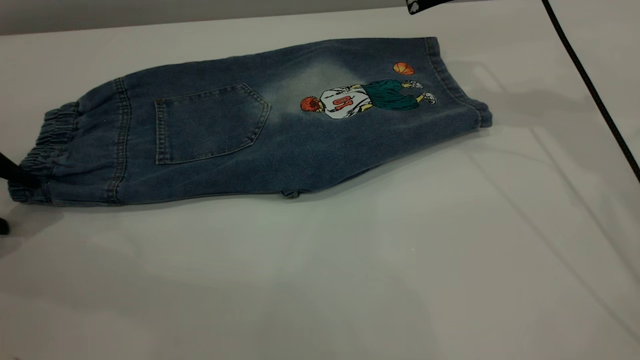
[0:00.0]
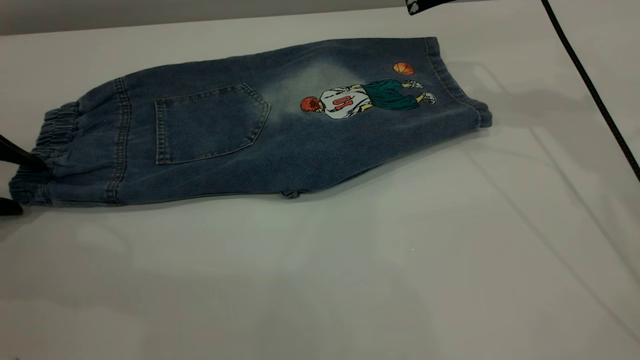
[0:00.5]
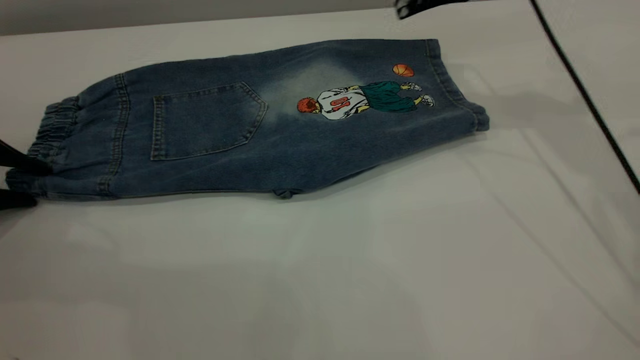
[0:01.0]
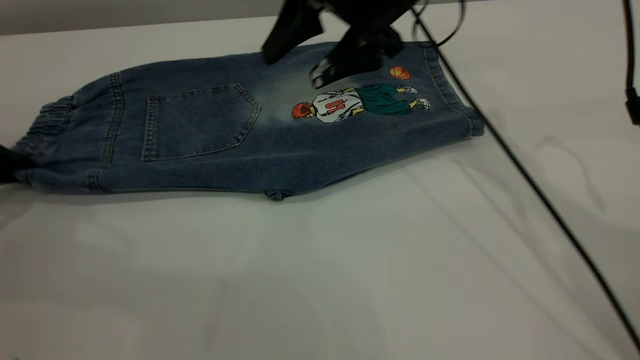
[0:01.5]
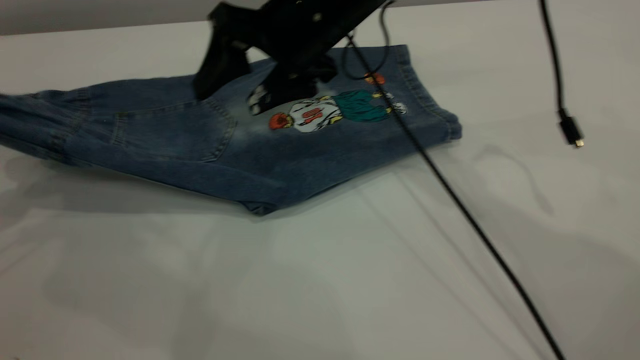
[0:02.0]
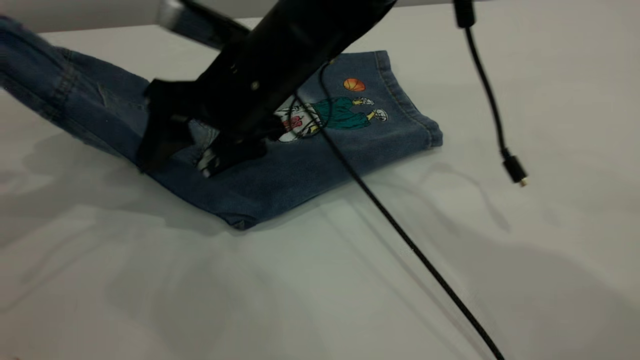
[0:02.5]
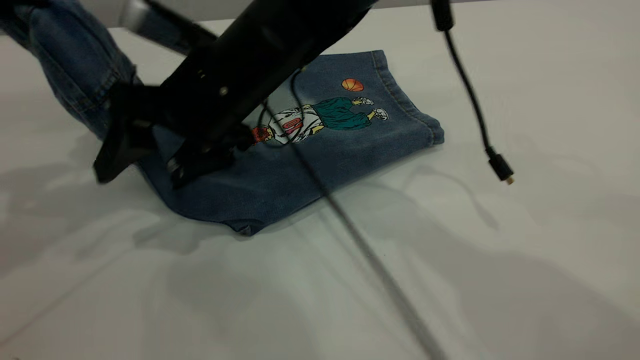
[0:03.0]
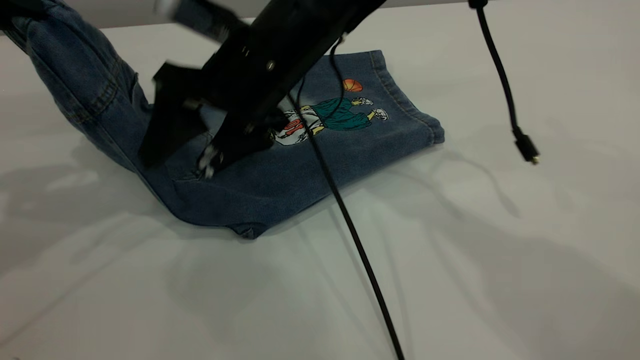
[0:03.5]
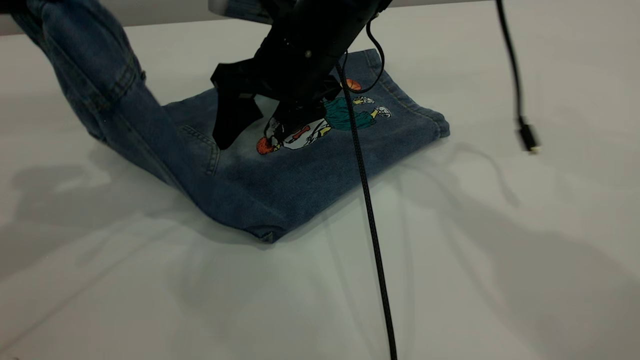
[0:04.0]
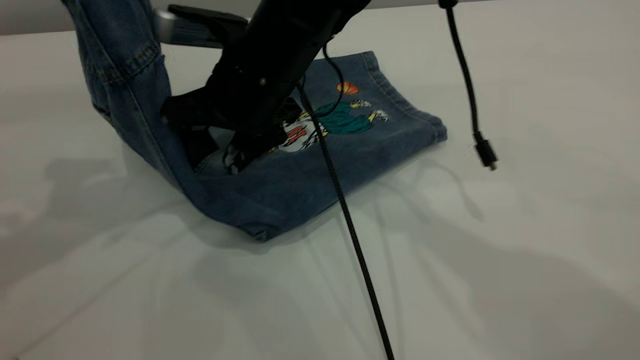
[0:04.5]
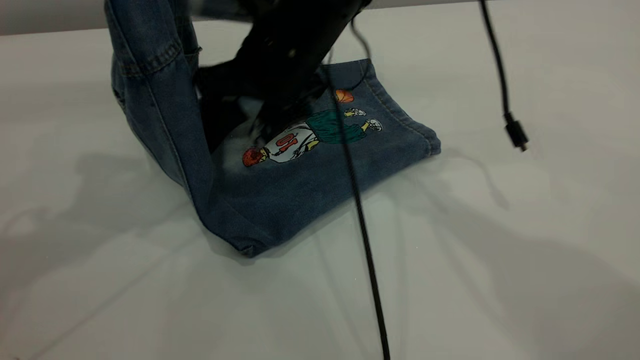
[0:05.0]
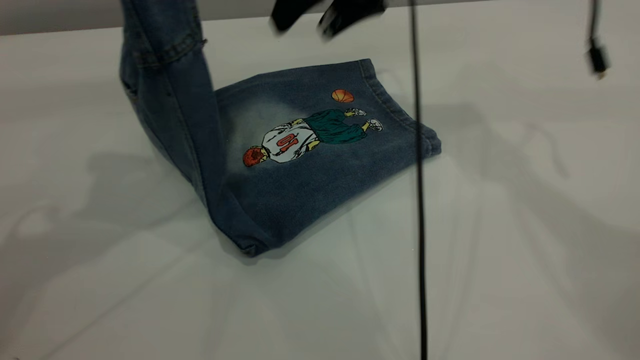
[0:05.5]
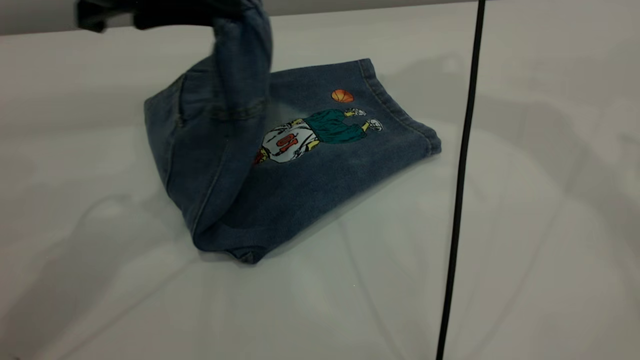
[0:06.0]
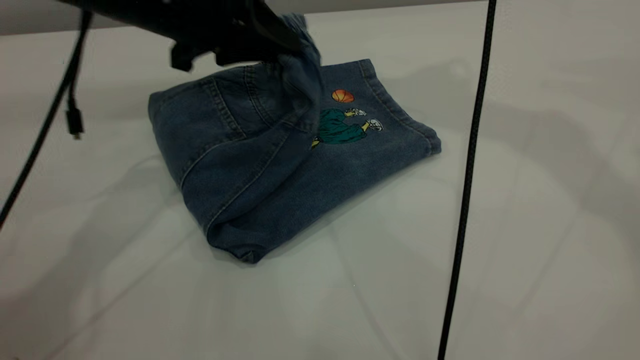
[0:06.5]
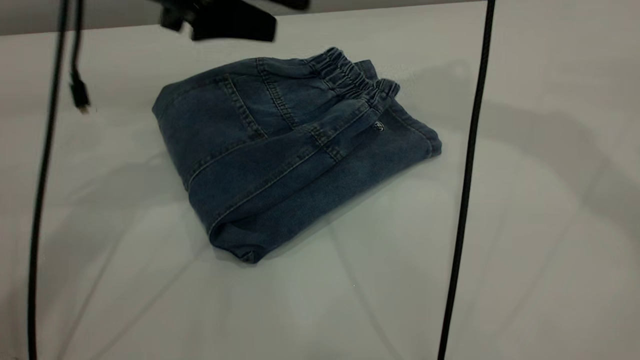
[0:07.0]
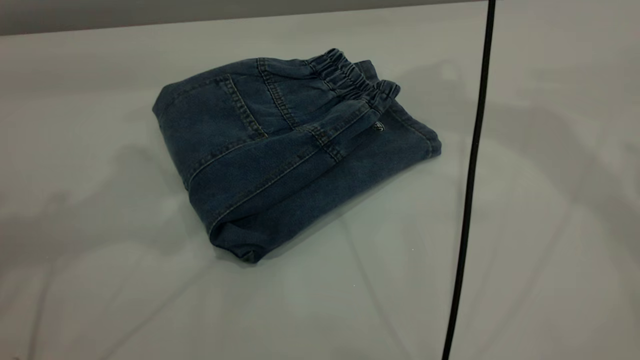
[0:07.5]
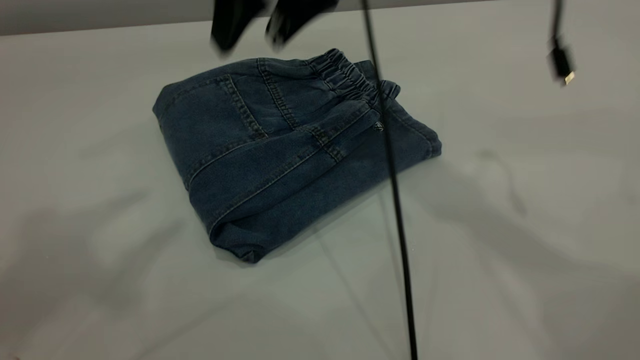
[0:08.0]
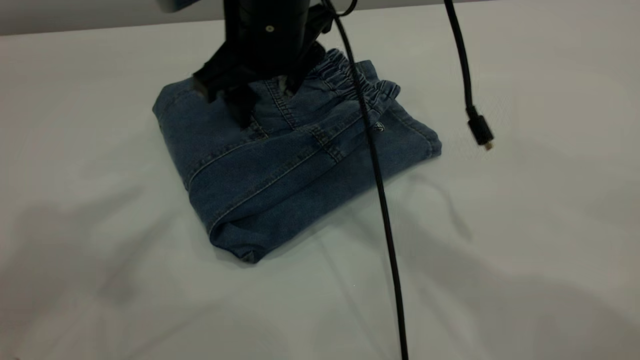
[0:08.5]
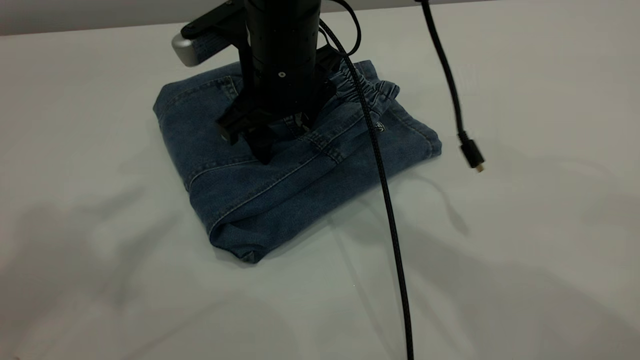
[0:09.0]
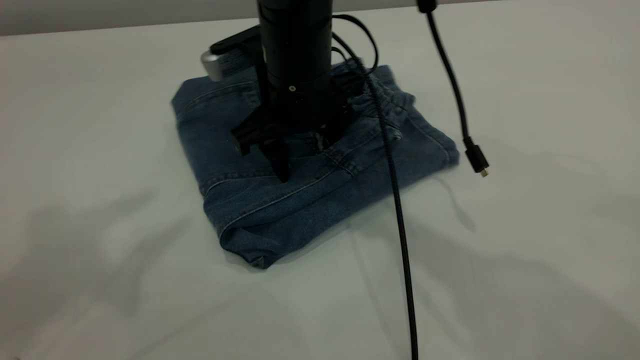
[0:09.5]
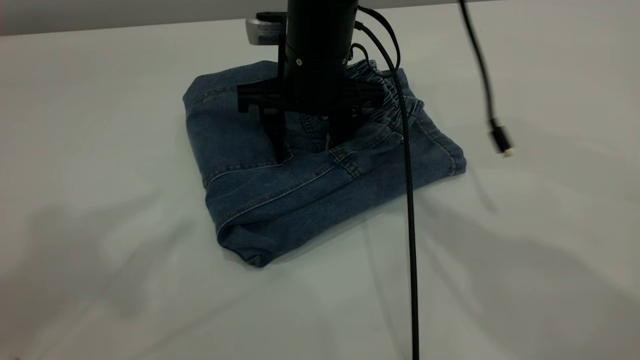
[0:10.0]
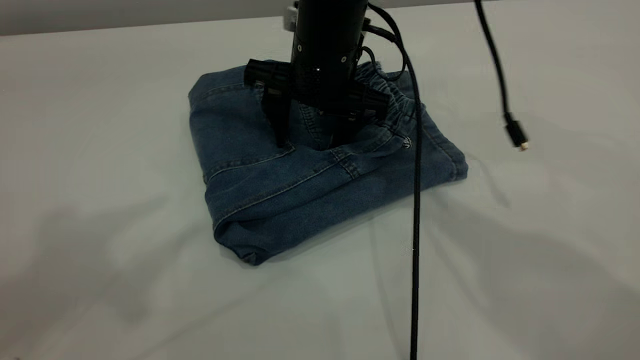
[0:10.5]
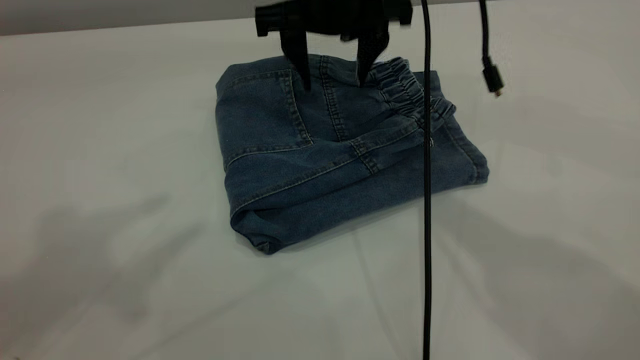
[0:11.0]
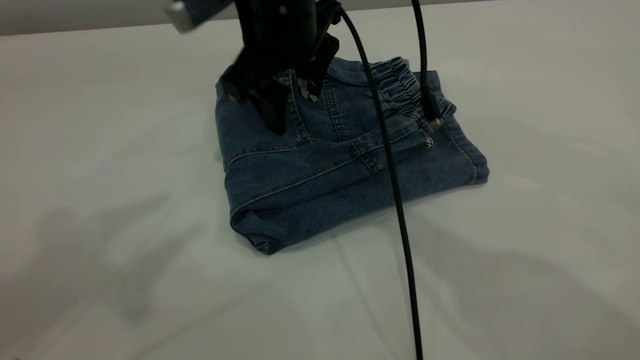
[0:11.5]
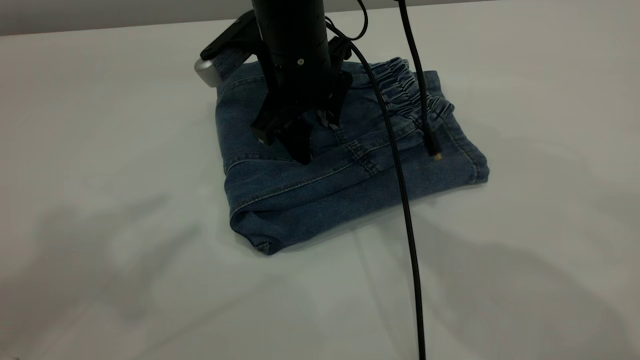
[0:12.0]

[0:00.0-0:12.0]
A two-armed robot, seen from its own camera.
Step, 0:00.0 to 0:07.5: Fold the pants from left to right.
0:00.0 to 0:02.0: The left gripper shifts roughly 10 cm upward, and closes up; the right gripper is displaced to the left by roughly 15 cm.
0:02.0 to 0:04.0: The left gripper is displaced to the right and upward by roughly 10 cm.
0:04.0 to 0:06.0: The right gripper heads upward and to the right, covering some 25 cm. The left gripper goes approximately 15 cm to the right.
0:06.0 to 0:08.0: The left gripper moves upward, to the left and backward, some 25 cm, and opens its fingers, while the right gripper is displaced to the left and downward by about 20 cm.
0:08.0 to 0:10.0: The right gripper heads downward, covering some 10 cm.

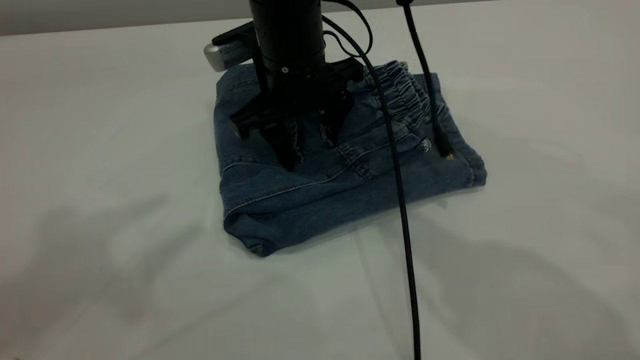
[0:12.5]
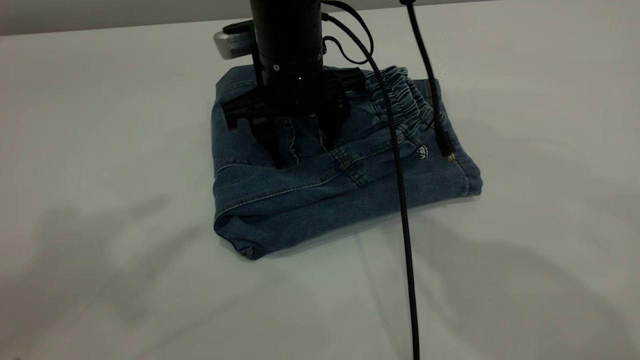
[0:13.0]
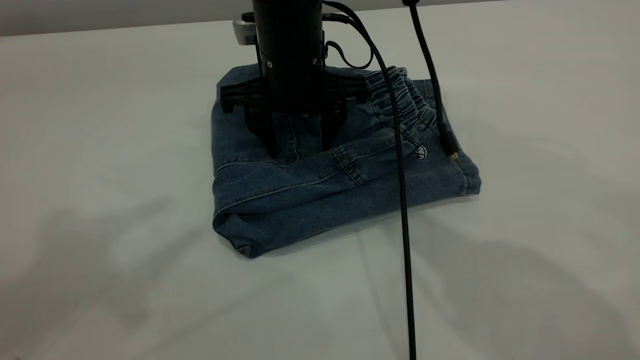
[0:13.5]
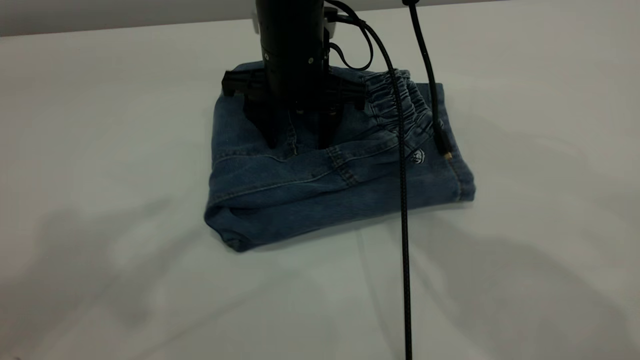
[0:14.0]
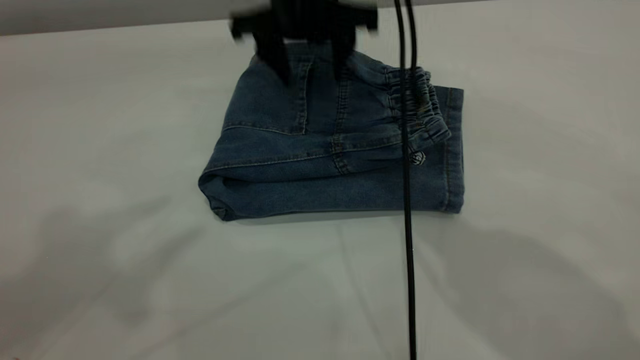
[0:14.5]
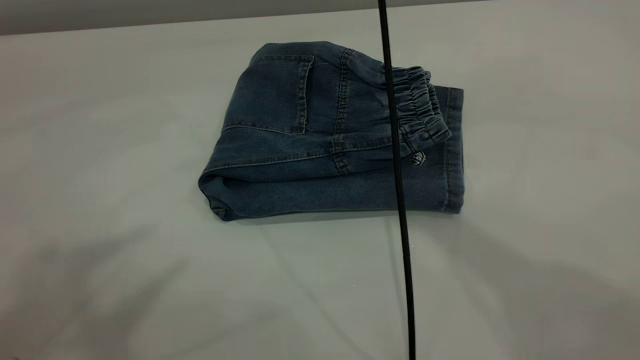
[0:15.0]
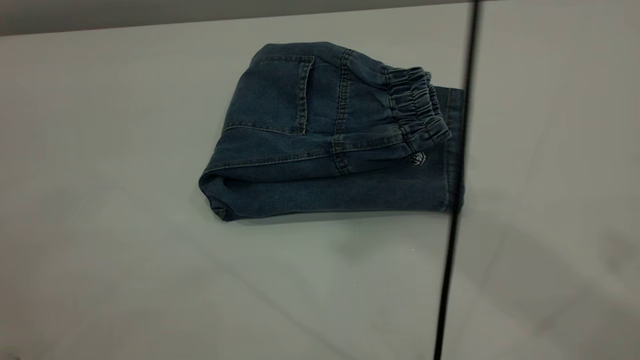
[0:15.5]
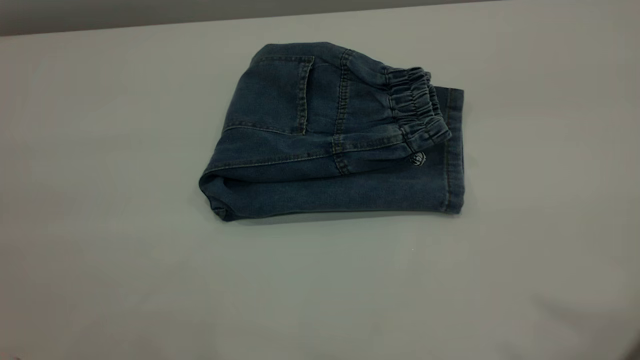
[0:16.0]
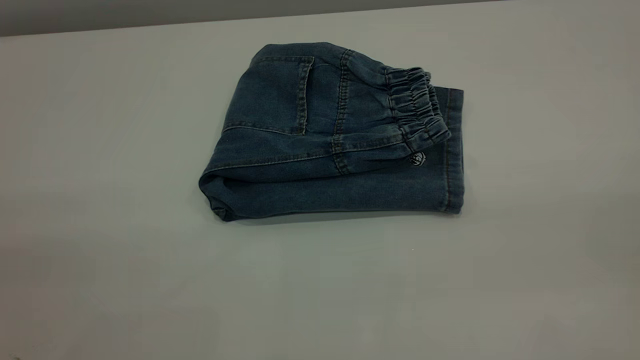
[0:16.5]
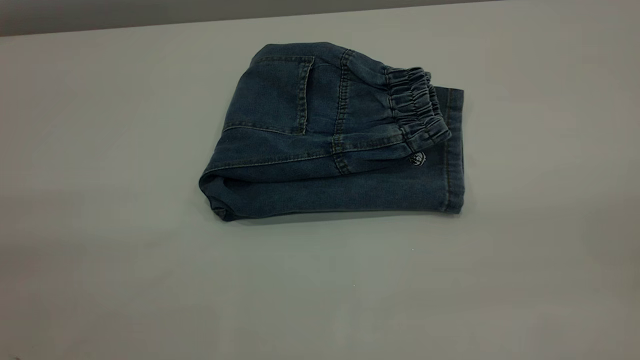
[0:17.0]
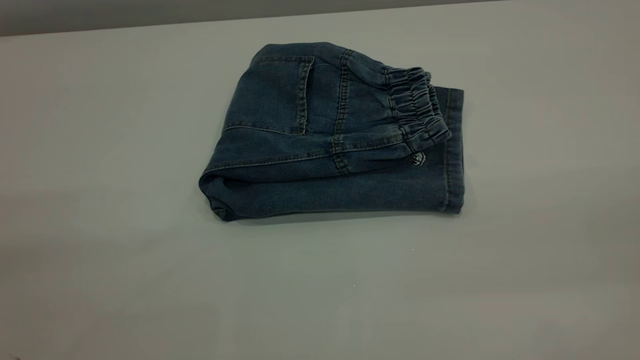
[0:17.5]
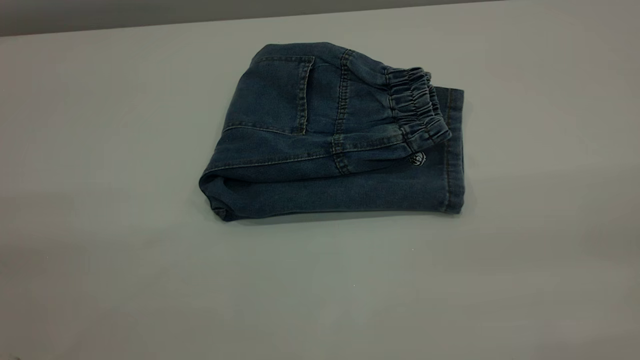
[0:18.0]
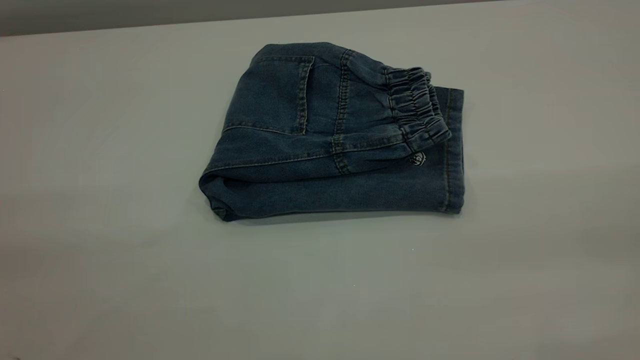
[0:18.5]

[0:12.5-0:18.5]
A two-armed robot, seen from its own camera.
0:12.5 to 0:14.5: The right gripper is displaced upward by approximately 5 cm.
0:14.5 to 0:16.5: The left gripper is displaced backward by some 25 cm, while the right gripper goes some 60 cm backward and to the right.

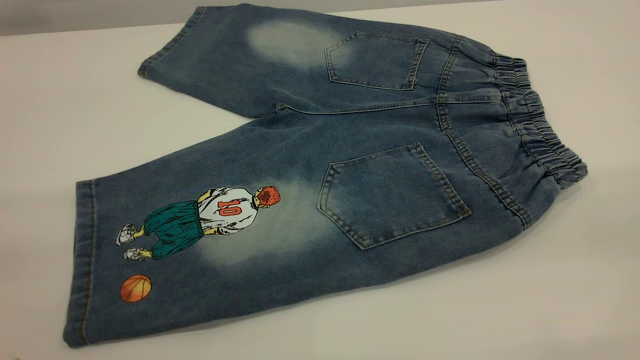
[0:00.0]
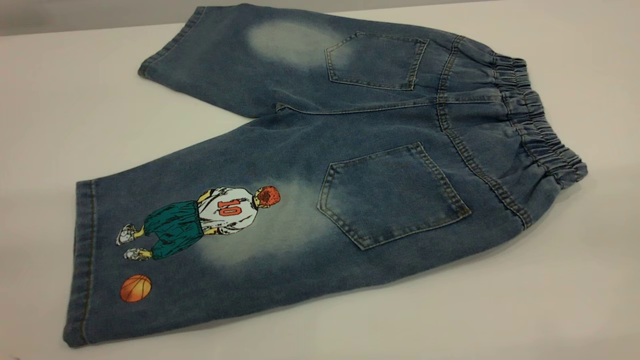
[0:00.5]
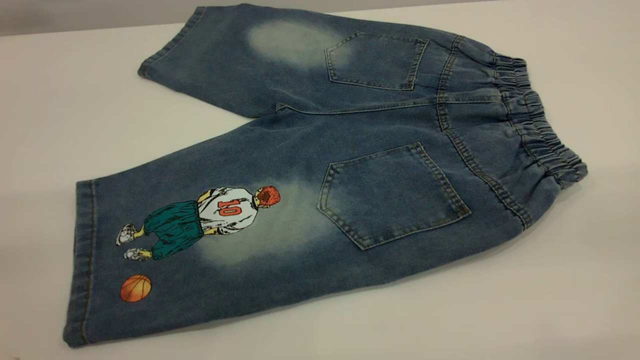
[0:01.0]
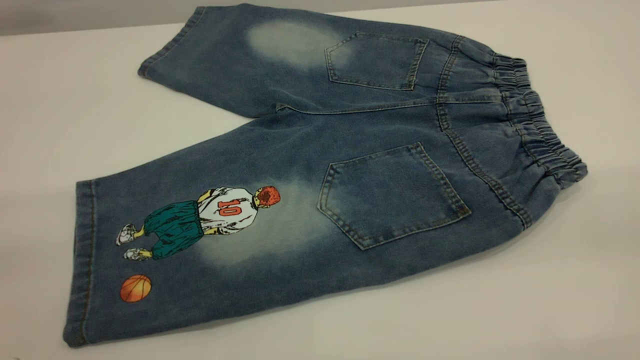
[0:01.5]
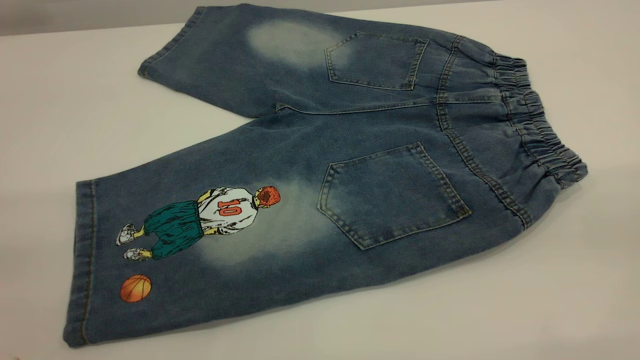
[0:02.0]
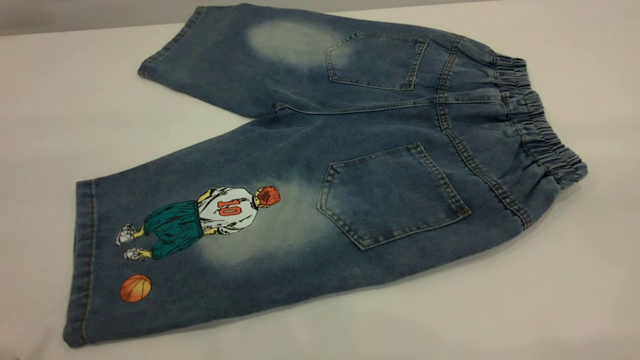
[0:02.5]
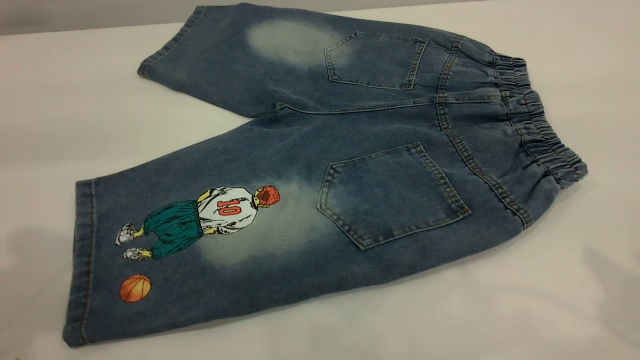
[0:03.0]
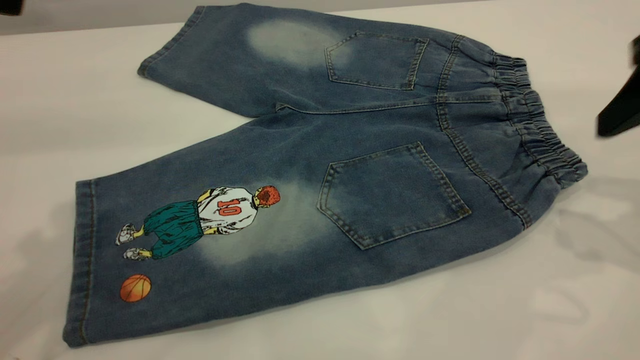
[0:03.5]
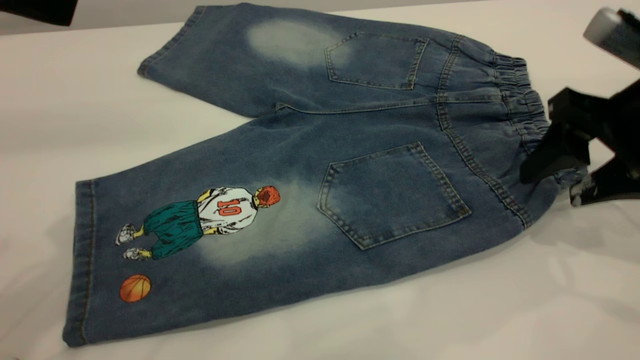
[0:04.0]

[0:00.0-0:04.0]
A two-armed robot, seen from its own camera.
0:02.0 to 0:04.0: The left gripper shifts some 25 cm forward, while the right gripper travels forward and downward by some 35 cm.
